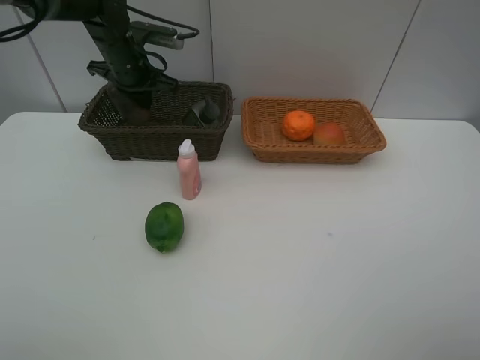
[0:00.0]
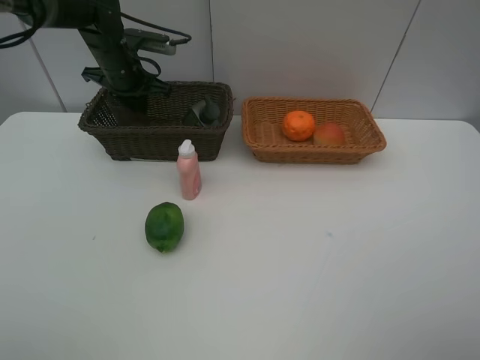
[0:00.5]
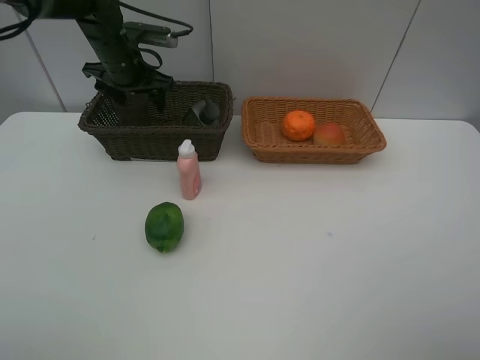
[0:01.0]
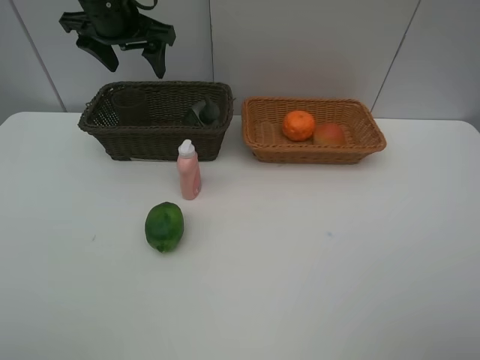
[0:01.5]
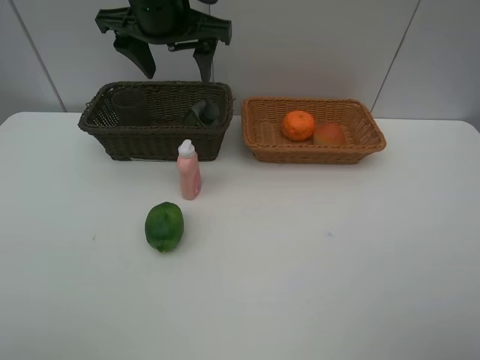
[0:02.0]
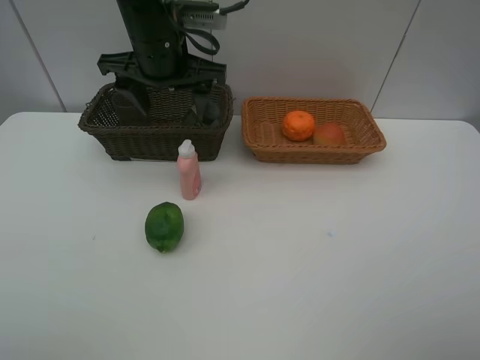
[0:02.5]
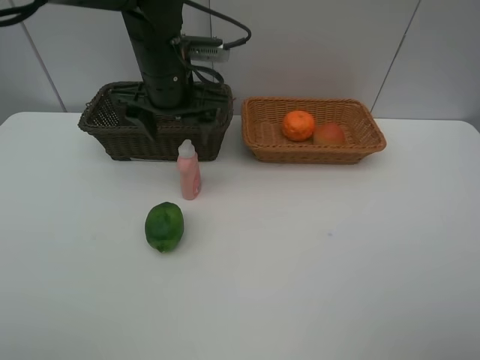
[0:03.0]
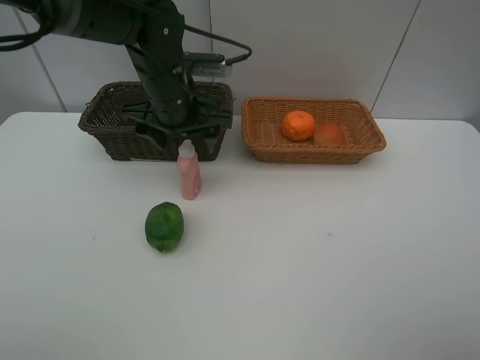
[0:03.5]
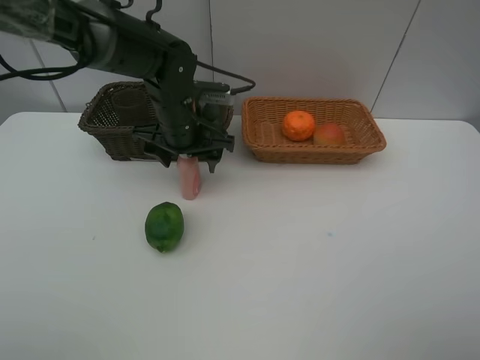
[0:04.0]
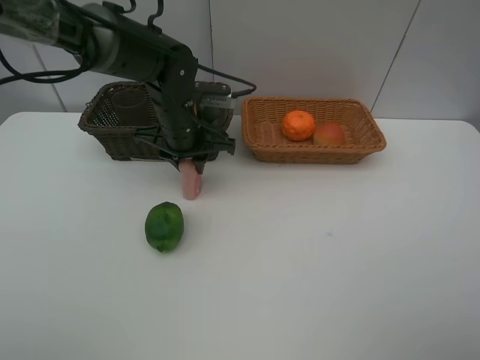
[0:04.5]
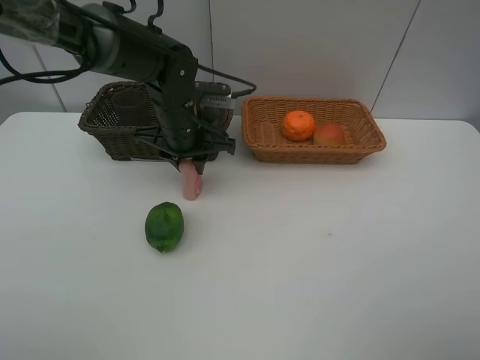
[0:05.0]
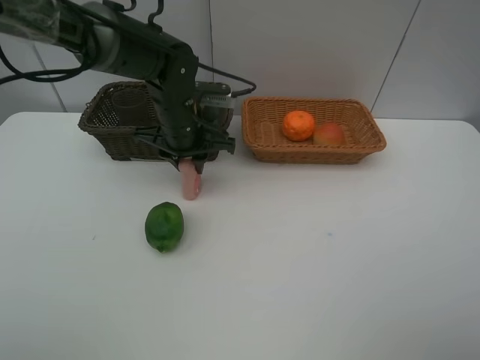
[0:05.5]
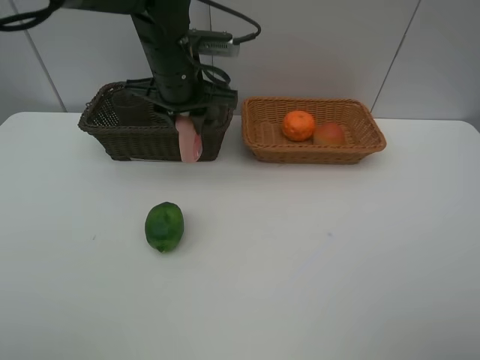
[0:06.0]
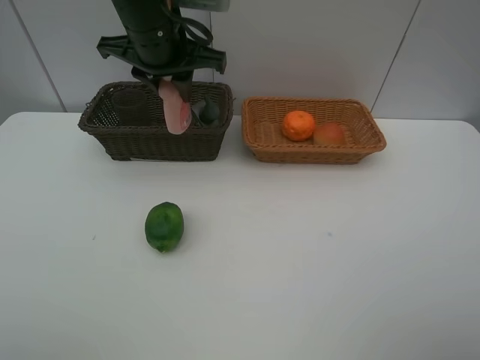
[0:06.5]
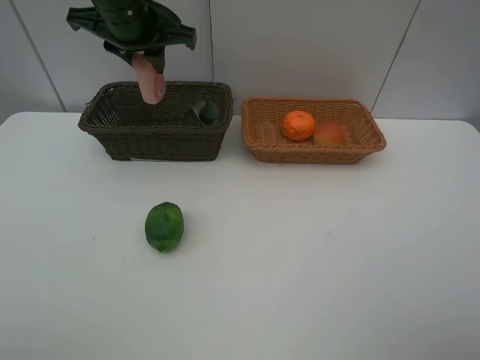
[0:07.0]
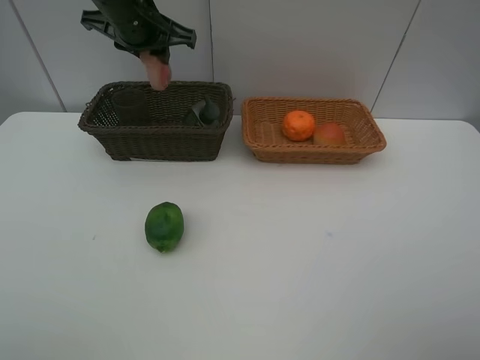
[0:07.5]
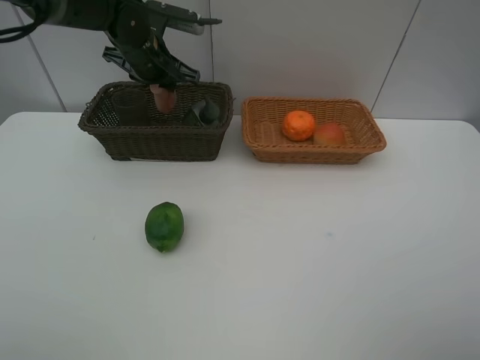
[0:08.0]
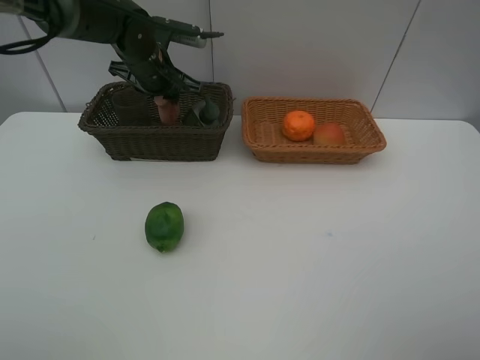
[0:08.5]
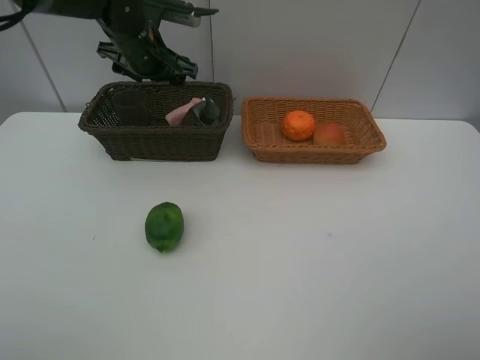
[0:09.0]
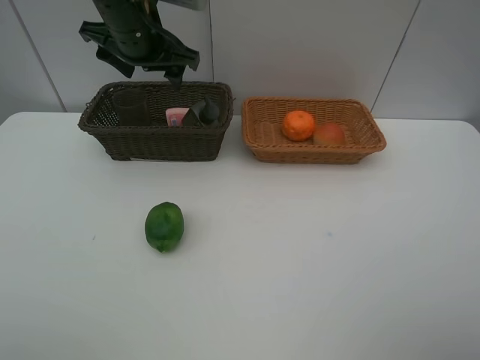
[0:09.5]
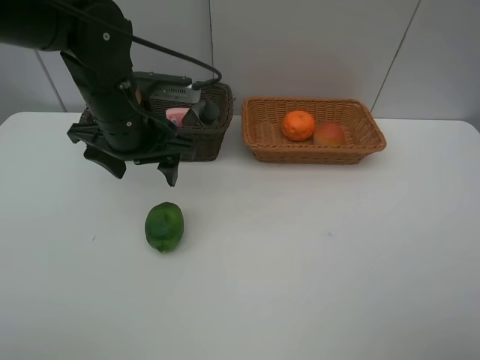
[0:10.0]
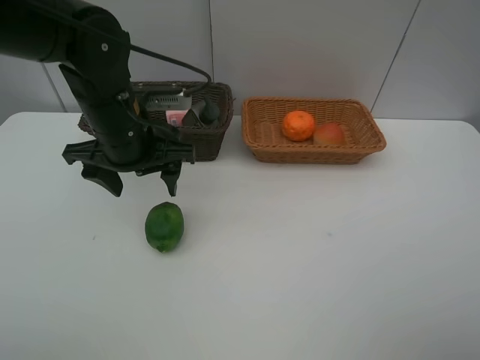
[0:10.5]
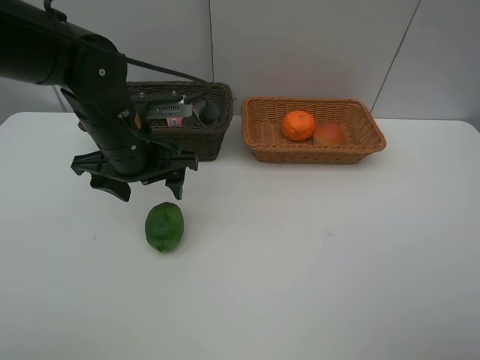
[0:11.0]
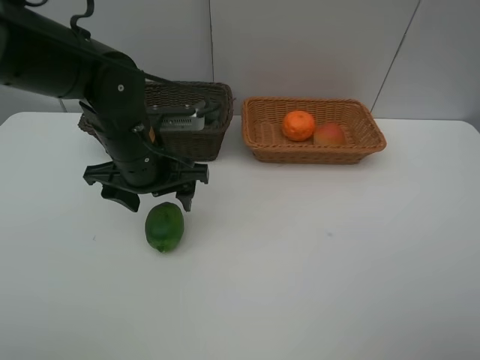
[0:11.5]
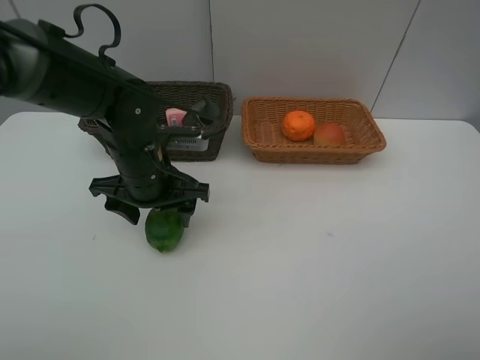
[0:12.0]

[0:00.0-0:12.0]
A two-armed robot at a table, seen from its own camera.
Task of the whole recording: place multiple objects separately in different baskets.
0.0 to 2.0 s: The left gripper is displaced upward, backward and to the right by roughly 20 cm, and opens up.
2.0 to 4.0 s: The left gripper shifts approximately 15 cm downward.
4.0 to 6.0 s: The left gripper heads upward, covering approximately 10 cm, and closes up.
6.0 to 8.0 s: The left gripper shifts some 10 cm forward and to the left, and reaches some 5 cm upward, then returns.
8.0 to 10.0 s: The left gripper goes about 15 cm backward, and opens up.
10.0 to 12.0 s: The left gripper moves downward, some 5 cm.

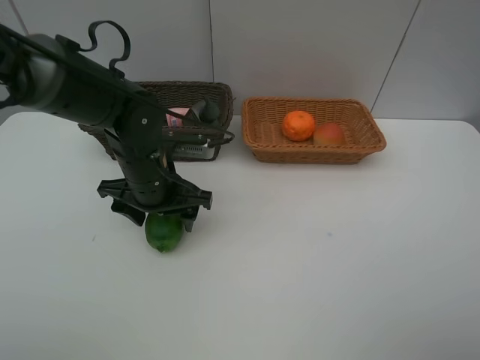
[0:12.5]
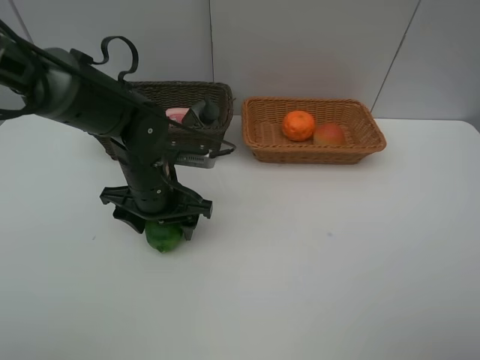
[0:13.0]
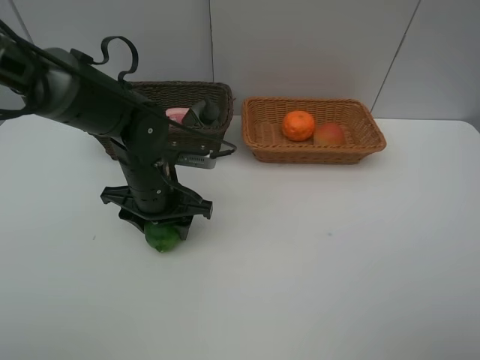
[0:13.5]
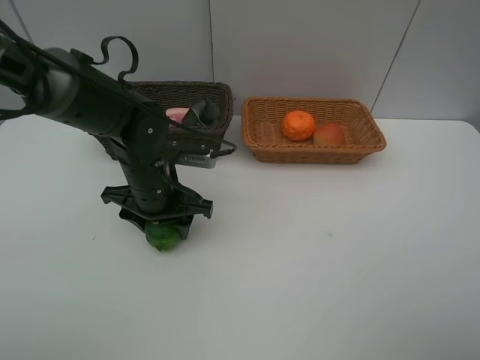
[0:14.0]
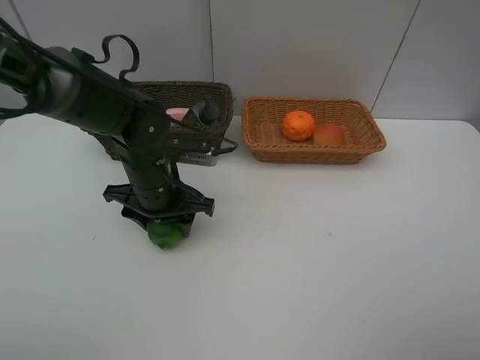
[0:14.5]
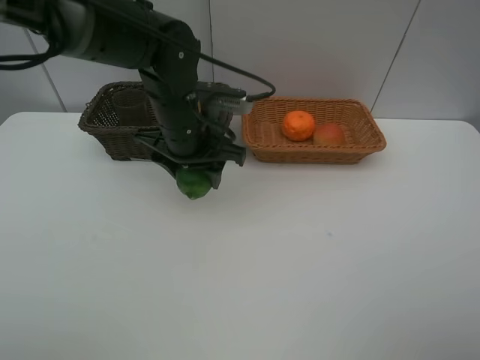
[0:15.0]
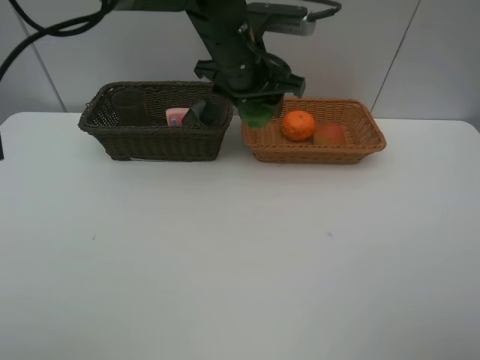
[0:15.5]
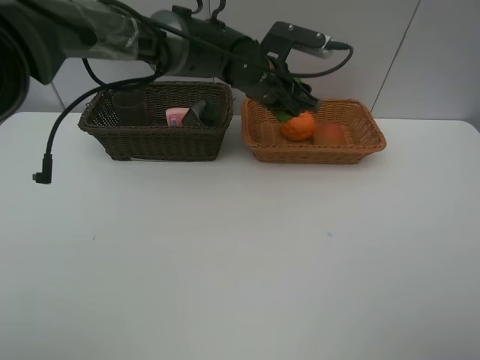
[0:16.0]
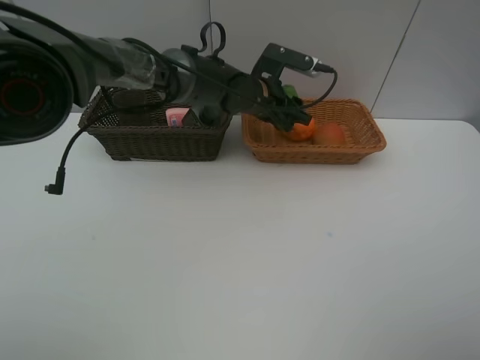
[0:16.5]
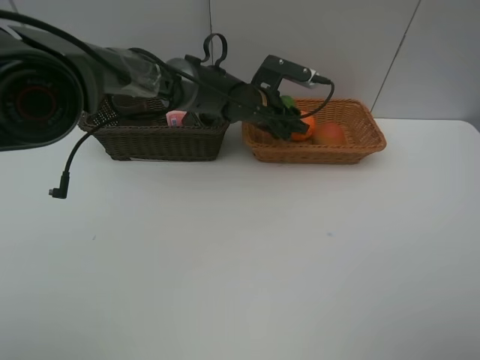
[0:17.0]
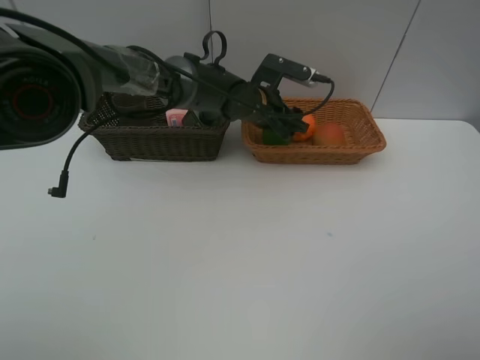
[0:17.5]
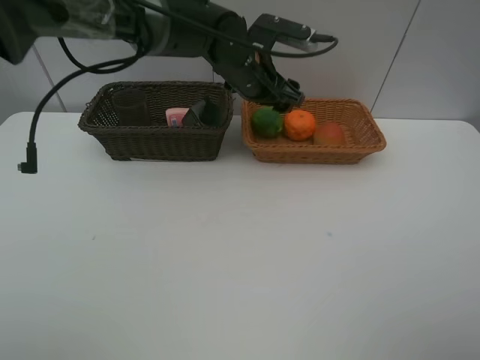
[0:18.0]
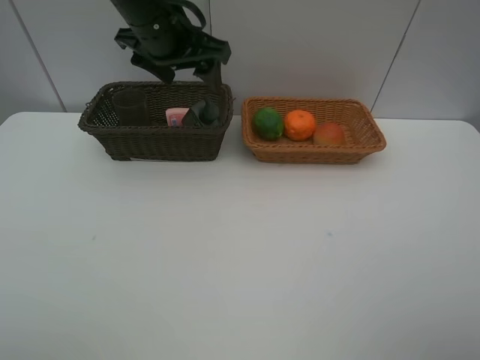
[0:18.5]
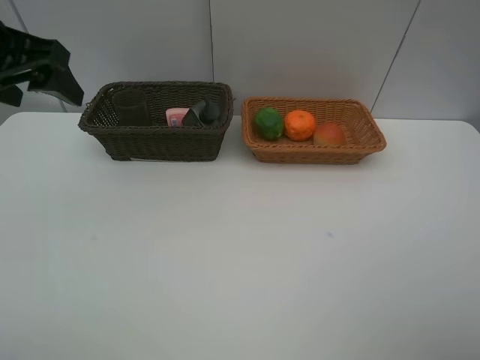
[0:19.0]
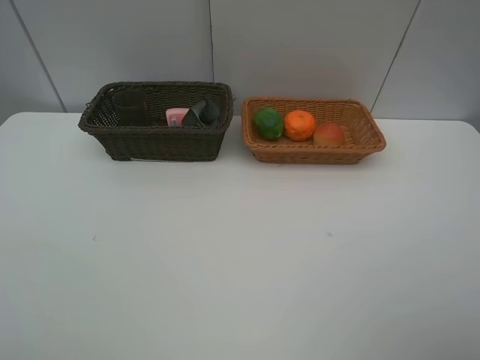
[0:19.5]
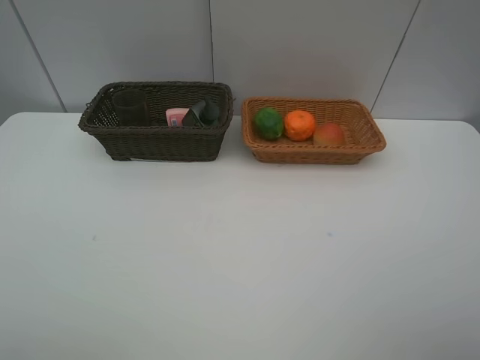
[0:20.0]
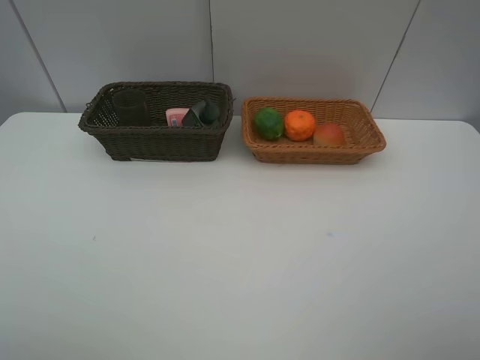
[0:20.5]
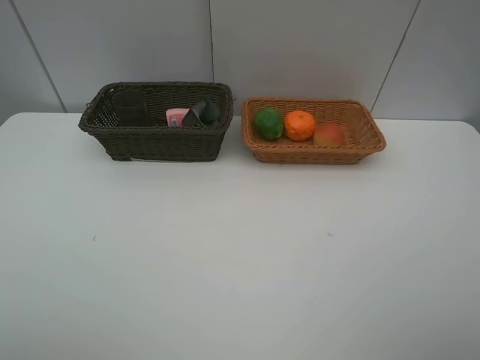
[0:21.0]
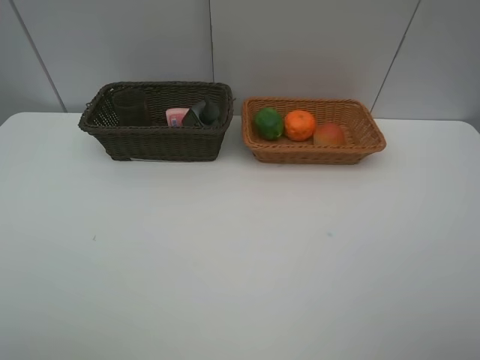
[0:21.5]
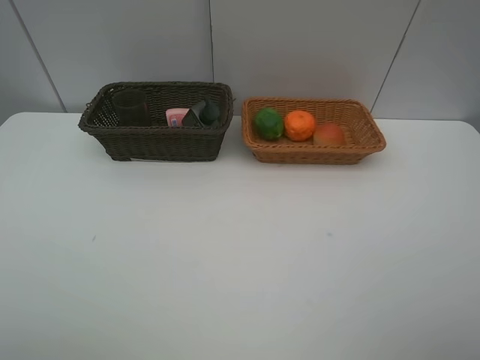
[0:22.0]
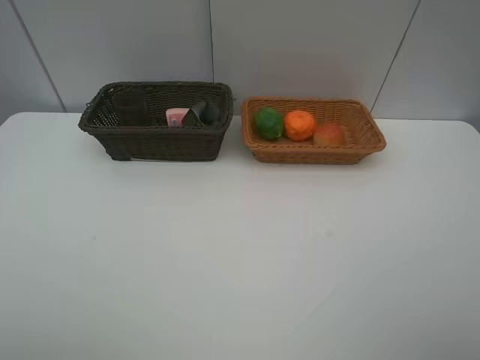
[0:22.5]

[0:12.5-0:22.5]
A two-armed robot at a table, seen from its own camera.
Task of the whole recording: place multiple objects separately in different baskets.
12.5 to 14.5 s: Neither gripper changes place.
14.5 to 16.5 s: The left gripper travels forward and to the right by roughly 20 cm.
16.5 to 18.5 s: The left gripper is displaced upward, to the left and backward by roughly 20 cm.
18.5 to 20.5 s: The left gripper moves backward and to the left, roughly 40 cm.
20.5 to 22.5 s: Neither gripper changes place.

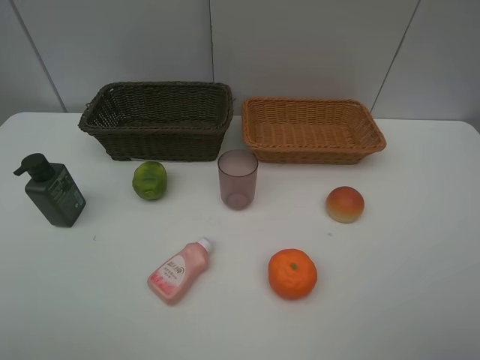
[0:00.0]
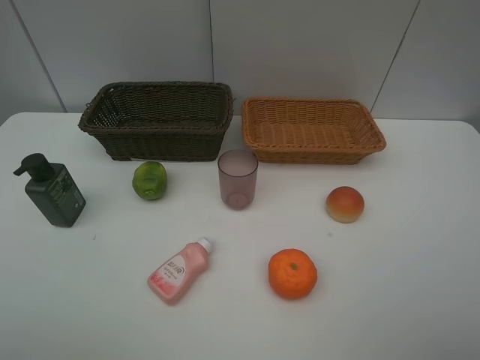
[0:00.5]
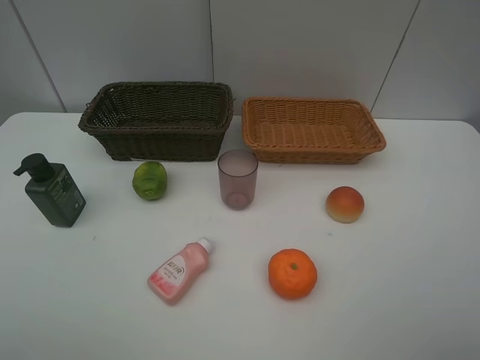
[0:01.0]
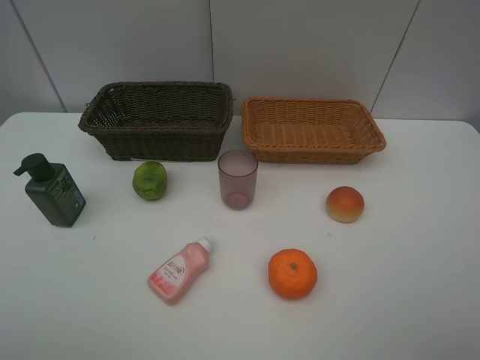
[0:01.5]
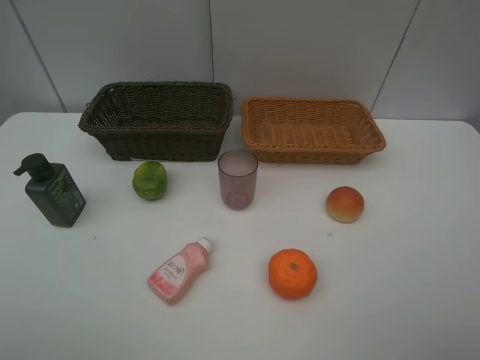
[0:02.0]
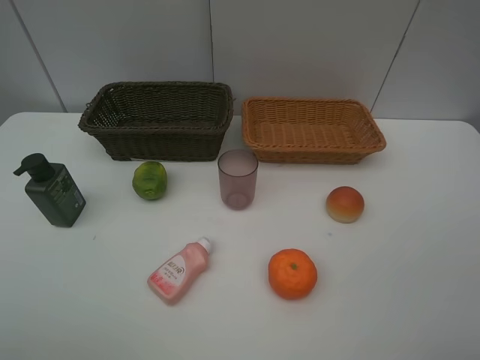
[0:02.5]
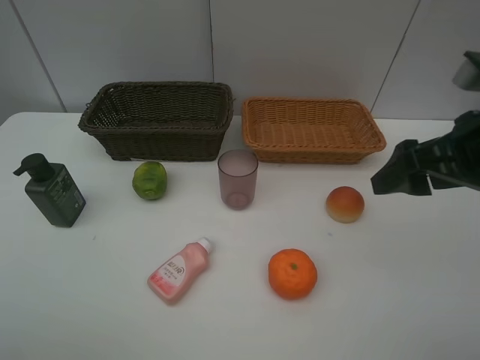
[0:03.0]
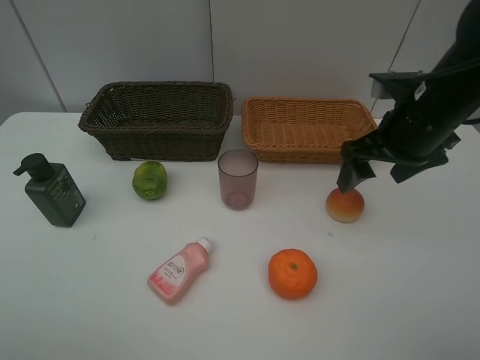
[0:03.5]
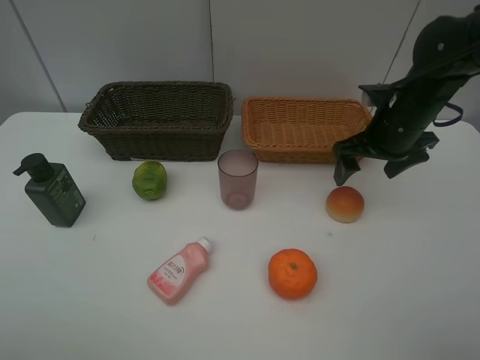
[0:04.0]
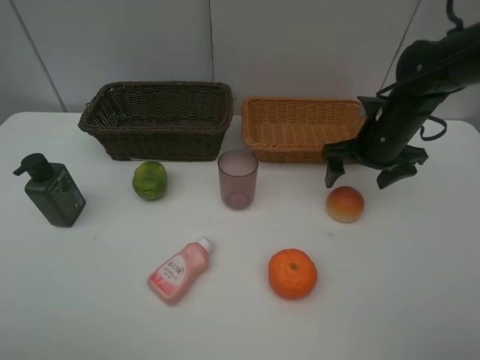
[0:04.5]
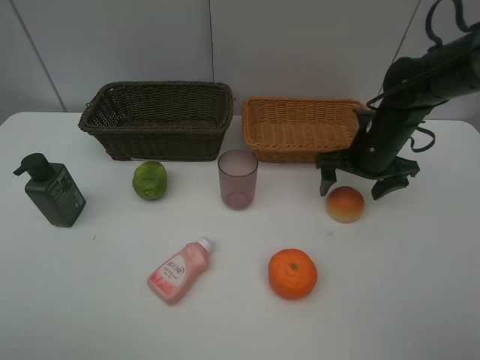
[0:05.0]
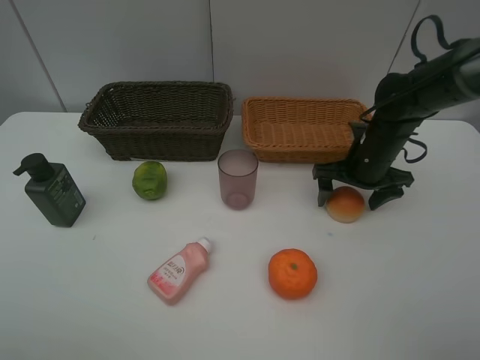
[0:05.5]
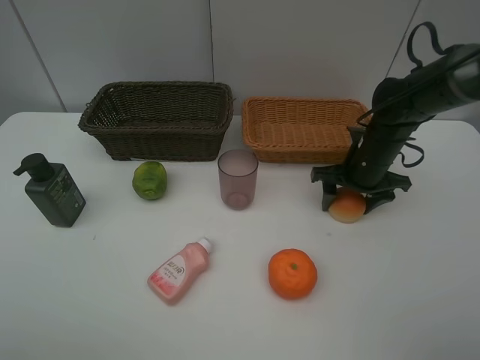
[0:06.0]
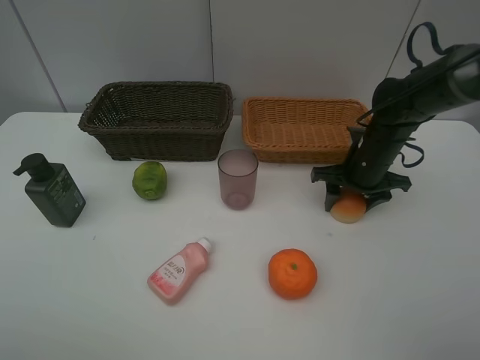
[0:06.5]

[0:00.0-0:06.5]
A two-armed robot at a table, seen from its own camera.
Task of the whole recording: place multiple objects separately in different baskets.
2.0 to 4.5 s: The right gripper goes approximately 35 cm forward and downward.
4.5 to 6.5 s: The right gripper travels downward by some 5 cm, and closes up.
